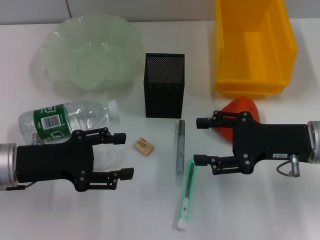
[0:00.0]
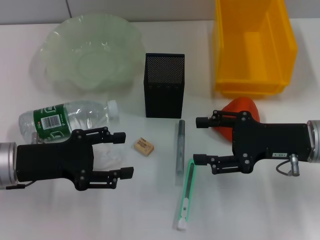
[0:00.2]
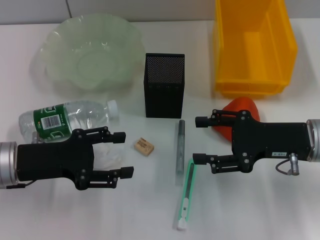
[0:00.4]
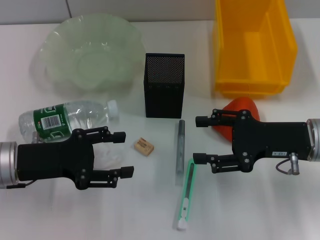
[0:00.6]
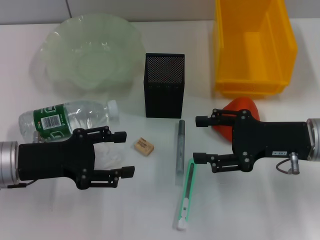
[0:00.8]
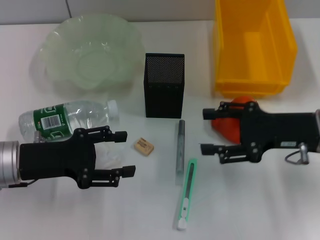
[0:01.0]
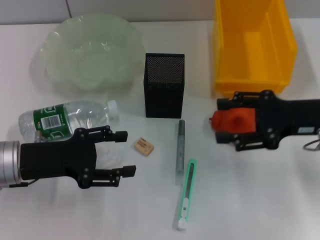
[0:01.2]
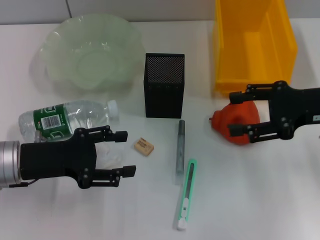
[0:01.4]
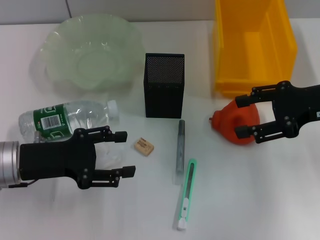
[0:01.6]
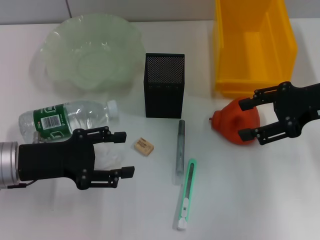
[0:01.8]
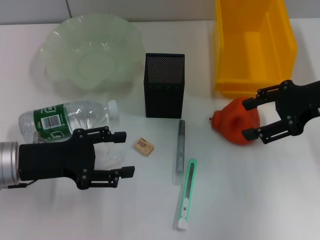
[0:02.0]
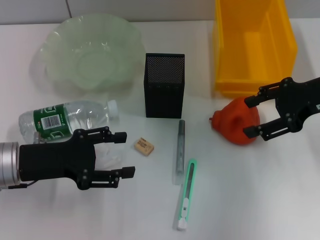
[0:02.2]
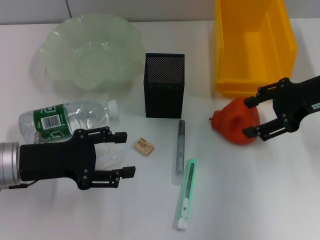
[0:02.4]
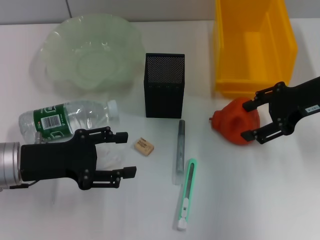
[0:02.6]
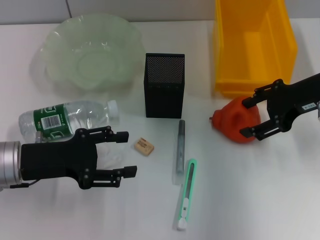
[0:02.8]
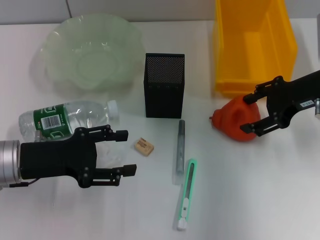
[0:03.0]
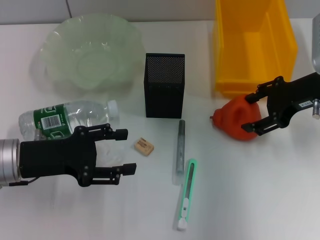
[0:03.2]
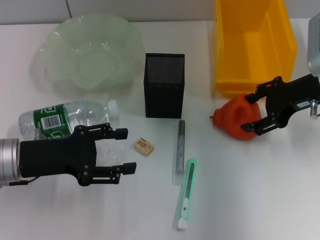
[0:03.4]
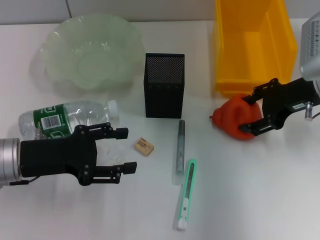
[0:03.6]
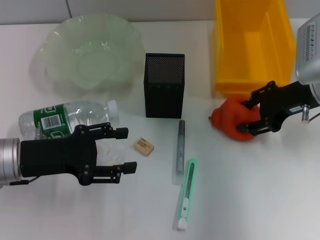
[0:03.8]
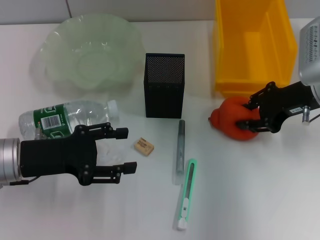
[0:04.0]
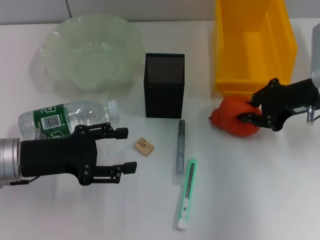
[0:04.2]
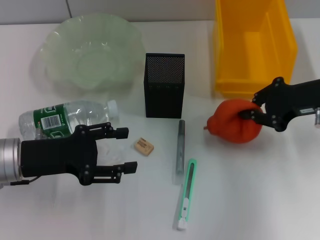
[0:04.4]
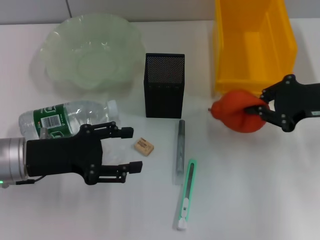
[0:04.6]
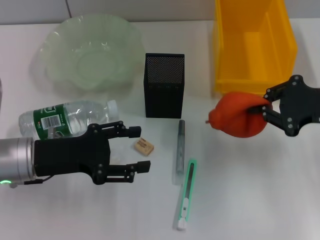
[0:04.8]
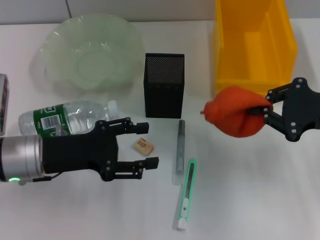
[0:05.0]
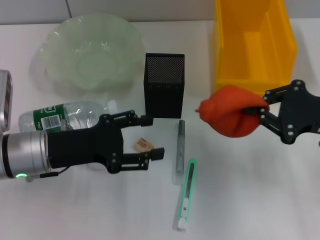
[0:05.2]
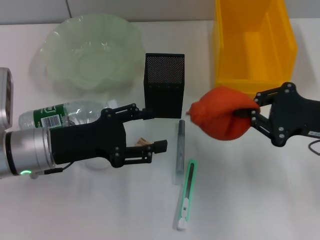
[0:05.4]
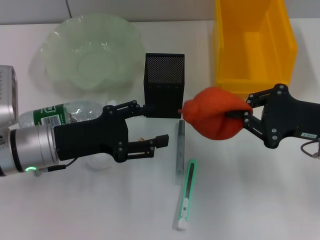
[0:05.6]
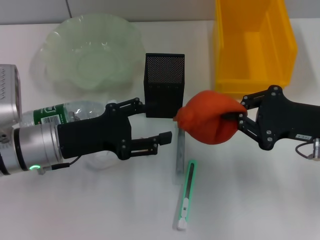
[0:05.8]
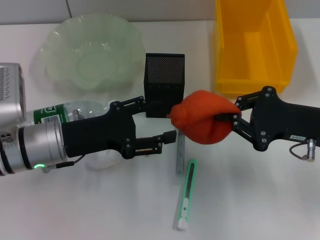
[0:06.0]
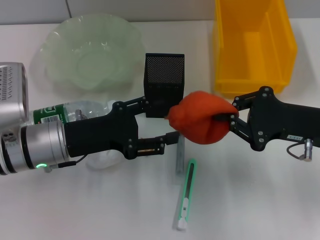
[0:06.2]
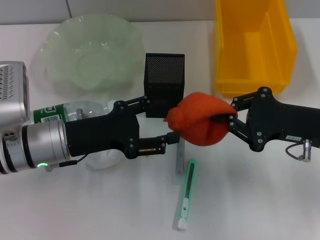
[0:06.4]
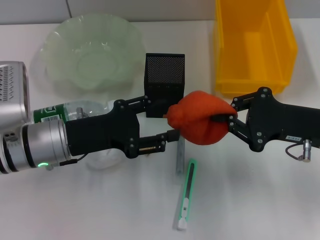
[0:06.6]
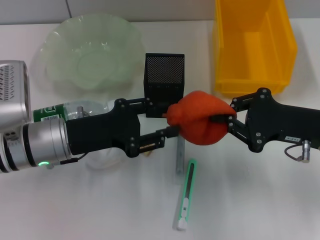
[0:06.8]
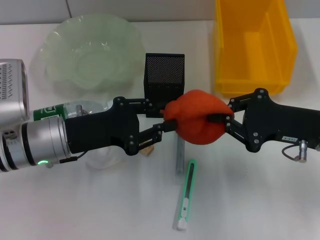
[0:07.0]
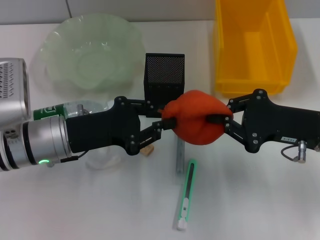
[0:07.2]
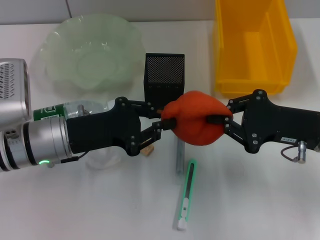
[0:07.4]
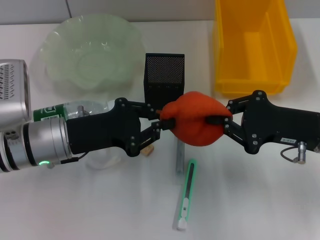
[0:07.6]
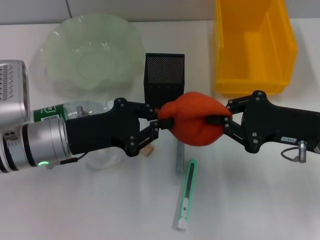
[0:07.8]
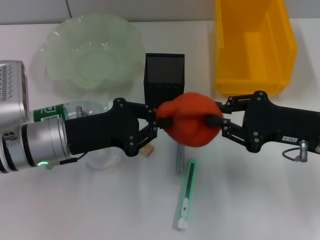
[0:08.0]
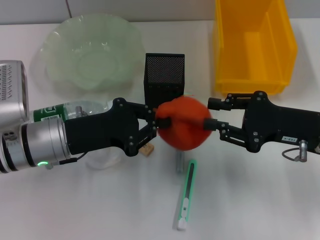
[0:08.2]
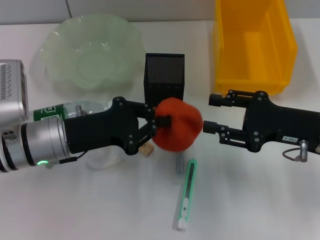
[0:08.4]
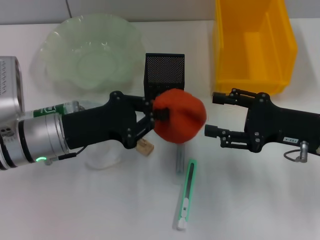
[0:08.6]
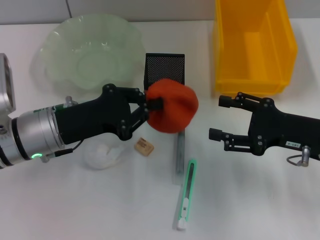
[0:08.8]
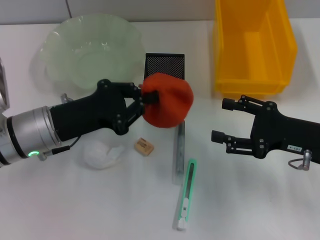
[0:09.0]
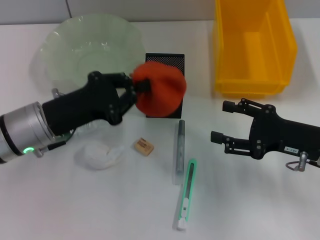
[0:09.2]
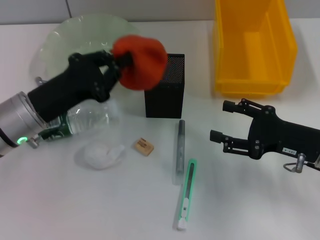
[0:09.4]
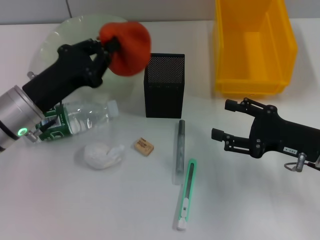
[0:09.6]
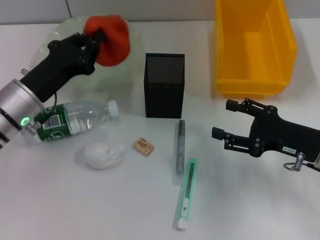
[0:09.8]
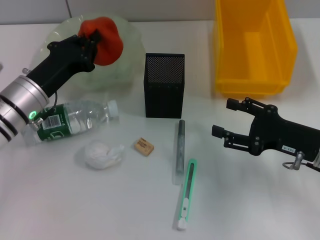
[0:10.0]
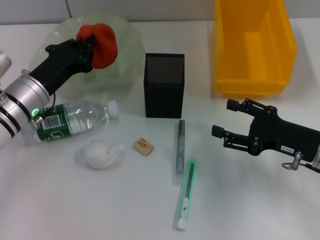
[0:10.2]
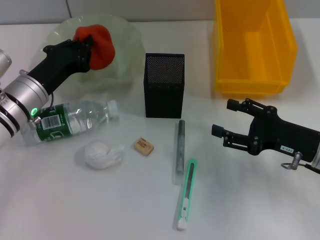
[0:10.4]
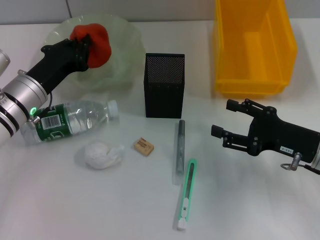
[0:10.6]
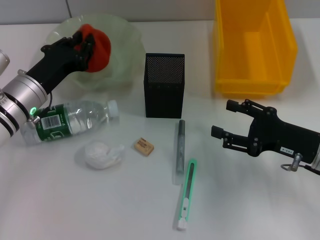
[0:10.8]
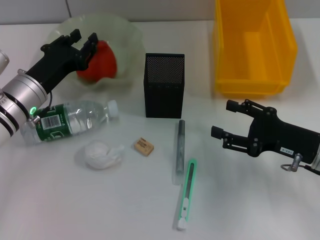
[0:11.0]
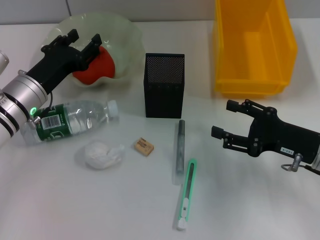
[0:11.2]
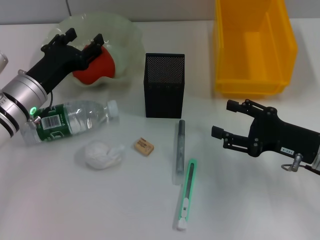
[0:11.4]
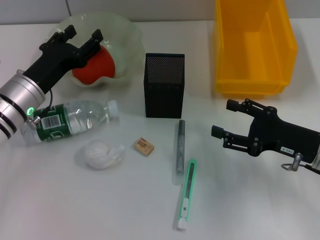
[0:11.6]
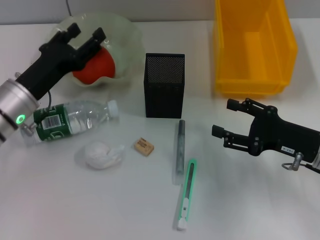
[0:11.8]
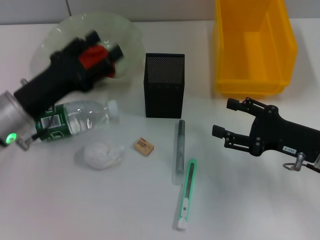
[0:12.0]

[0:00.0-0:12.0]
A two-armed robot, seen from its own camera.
Step, 0:00.0 to 0:04.0: Grab the orange with the right hand.
Step, 0:04.2 to 0:08.4: Pass the orange from the right hand to the left hand.
Step, 0:08.8 to 0:11.6: Place the orange into the fruit bowl with the left hand.
0:00.0 to 0:01.6: The right gripper travels upward by approximately 5 cm.
0:03.0 to 0:04.4: The right gripper closes its fingers.
0:04.4 to 0:06.0: The right gripper shifts approximately 5 cm backward; the left gripper goes roughly 5 cm to the right.
0:06.0 to 0:07.6: The left gripper closes.
0:07.6 to 0:09.0: The right gripper opens up.
0:09.0 to 0:10.4: The left gripper travels forward by some 5 cm.
0:10.4 to 0:12.0: The left gripper goes approximately 5 cm backward, and opens its fingers.

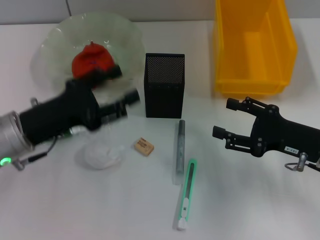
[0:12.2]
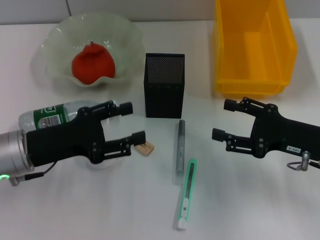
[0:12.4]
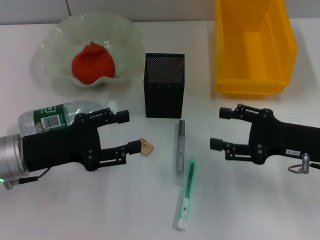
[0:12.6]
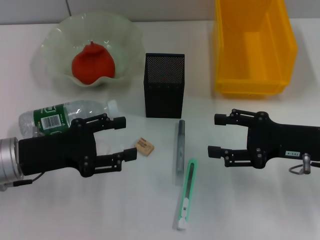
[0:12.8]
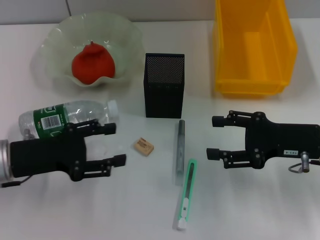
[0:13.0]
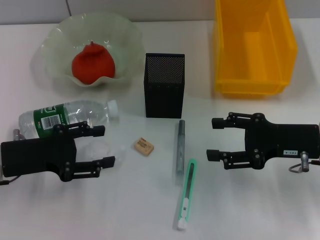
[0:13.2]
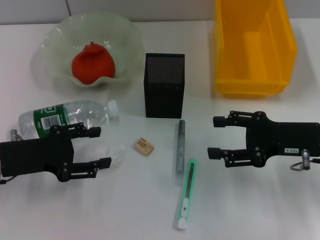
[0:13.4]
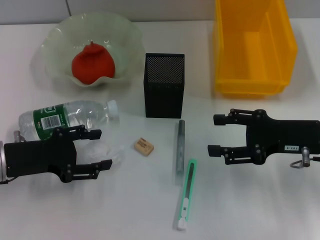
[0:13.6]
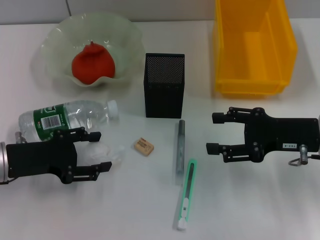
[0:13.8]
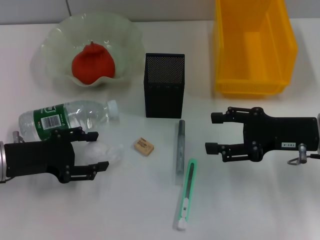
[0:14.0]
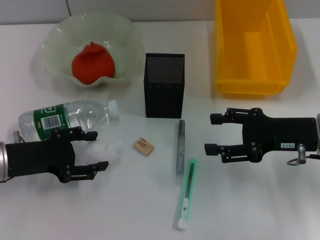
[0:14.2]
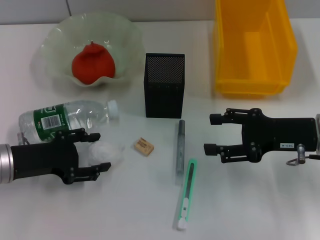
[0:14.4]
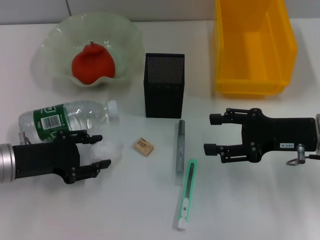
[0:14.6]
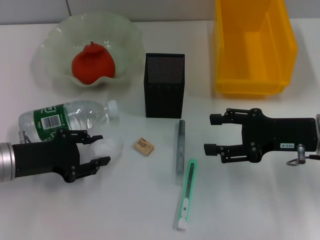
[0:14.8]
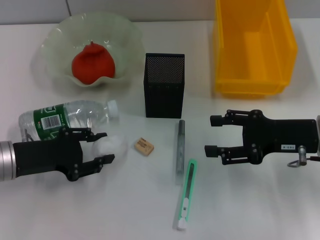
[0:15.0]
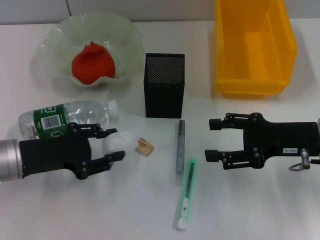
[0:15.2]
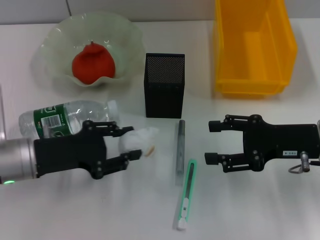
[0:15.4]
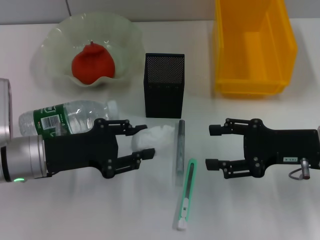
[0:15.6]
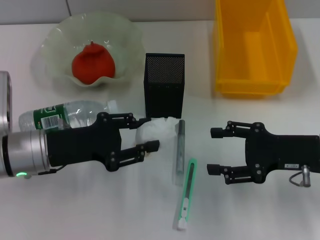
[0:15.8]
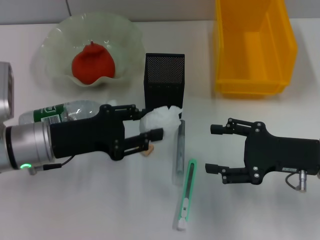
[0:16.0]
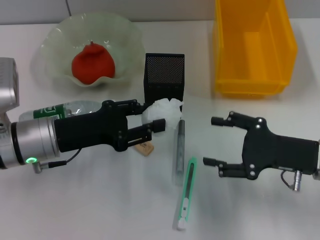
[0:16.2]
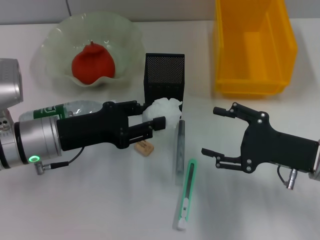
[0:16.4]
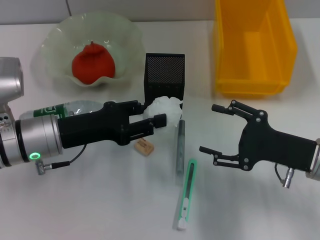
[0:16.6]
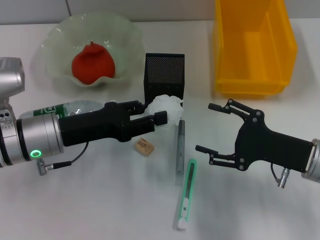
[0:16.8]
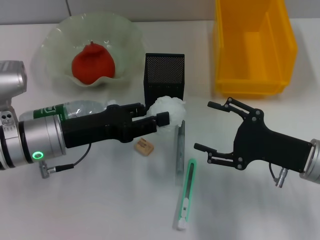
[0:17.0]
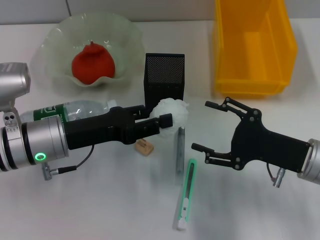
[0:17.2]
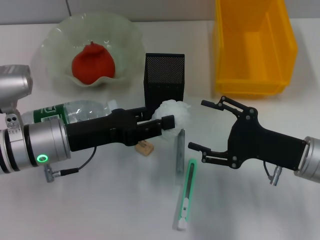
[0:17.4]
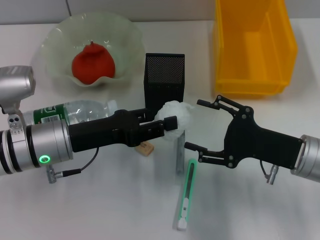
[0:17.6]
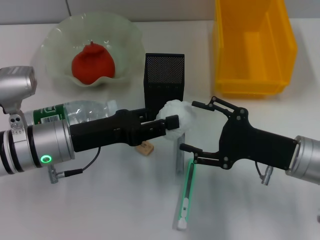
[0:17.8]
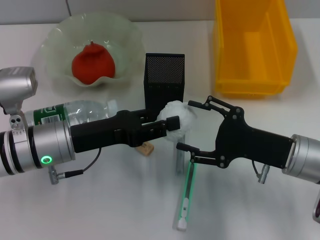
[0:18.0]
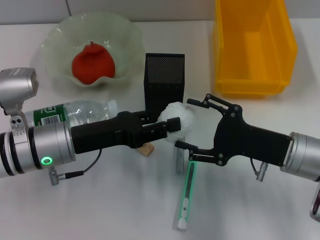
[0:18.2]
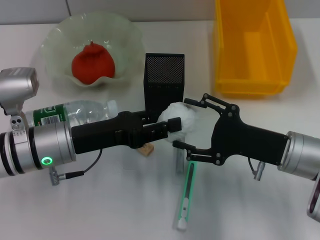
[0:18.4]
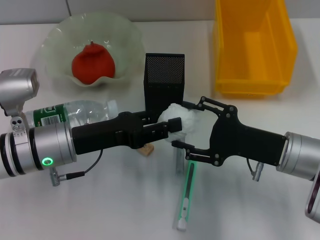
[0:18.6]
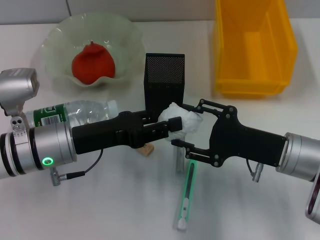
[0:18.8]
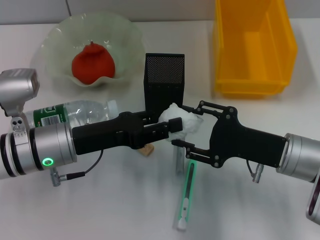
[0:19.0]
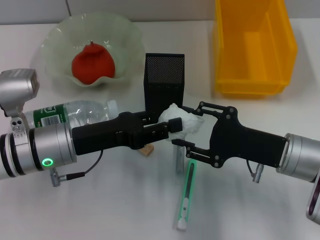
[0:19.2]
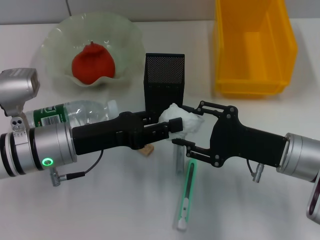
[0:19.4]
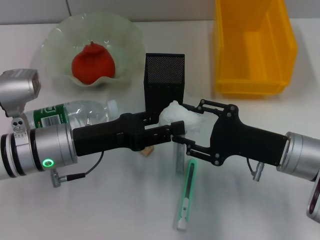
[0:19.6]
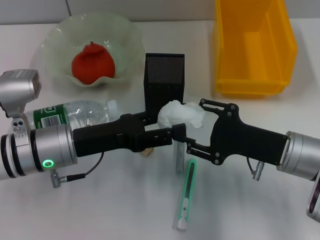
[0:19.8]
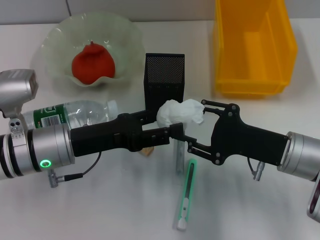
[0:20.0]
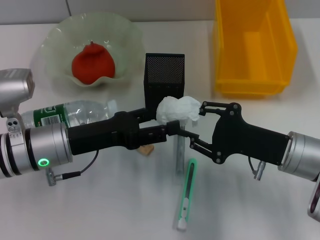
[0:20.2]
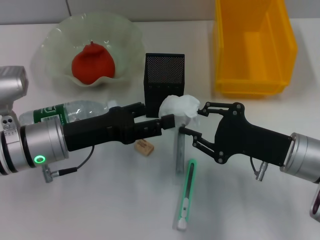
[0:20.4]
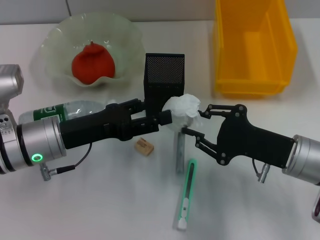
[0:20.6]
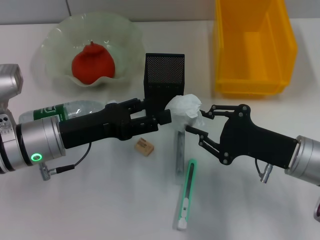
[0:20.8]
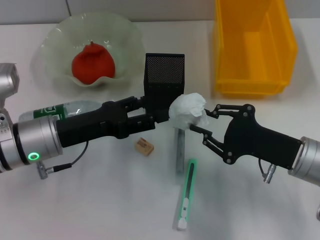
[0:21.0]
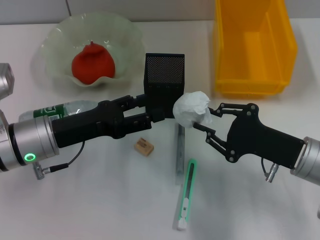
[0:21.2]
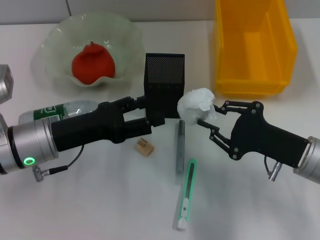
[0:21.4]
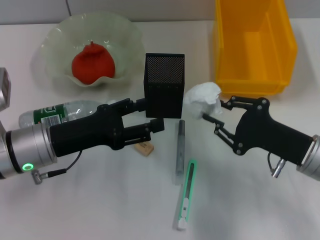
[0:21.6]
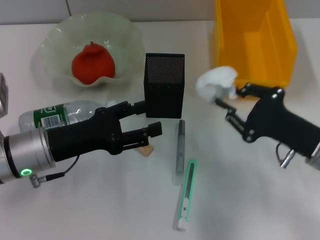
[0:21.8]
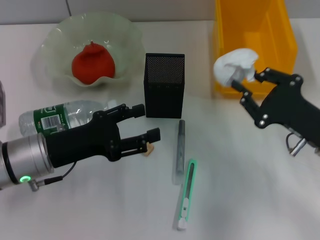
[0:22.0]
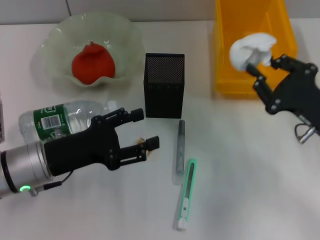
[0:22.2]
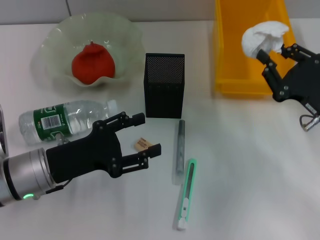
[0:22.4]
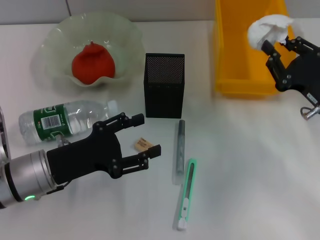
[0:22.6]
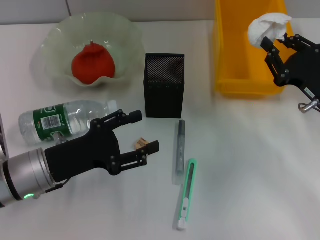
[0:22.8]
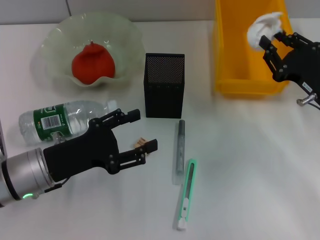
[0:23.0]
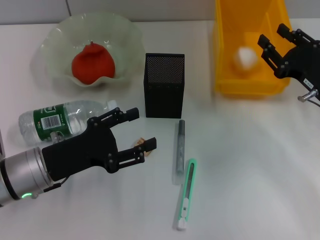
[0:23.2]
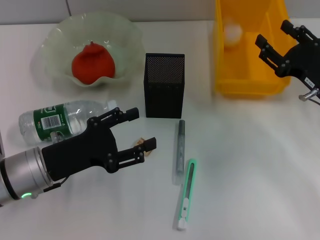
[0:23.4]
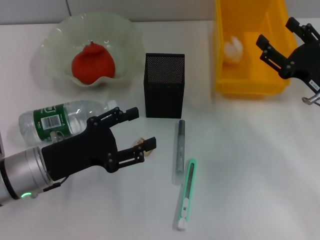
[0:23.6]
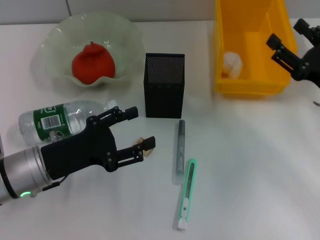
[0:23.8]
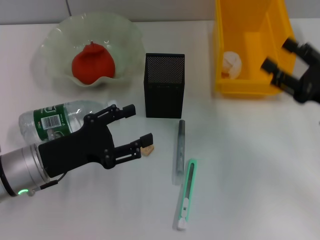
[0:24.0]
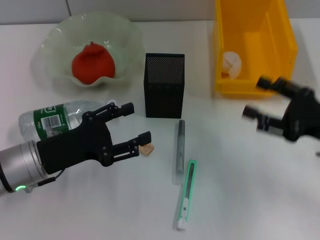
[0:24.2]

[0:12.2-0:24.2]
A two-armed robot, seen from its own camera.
Step, 0:12.2 to 0:14.6: Grab the paper ball with the left hand.
Step, 0:14.8 to 0:21.0: Pass the paper ball from the left hand to the right hand.
Step, 0:21.2 to 0:23.8: Place the paper ball into the trash can with the right hand.
0:12.2 to 0:13.8: The left gripper ends up about 5 cm from where it was.
0:13.8 to 0:15.2: The left gripper closes its fingers.
0:15.2 to 0:16.6: The left gripper heads to the right, covering about 5 cm.
0:16.6 to 0:18.2: There are only small adjustments of the grippers.
0:18.2 to 0:19.8: Both grippers stay about where they are.
0:19.8 to 0:21.2: The right gripper closes.
0:21.2 to 0:22.6: The right gripper changes place by some 5 cm. Meanwhile the left gripper shifts by some 5 cm.
0:22.6 to 0:24.2: The right gripper opens up.
